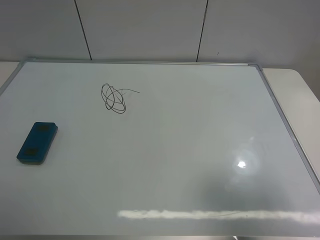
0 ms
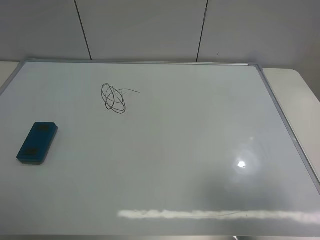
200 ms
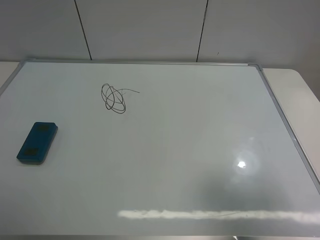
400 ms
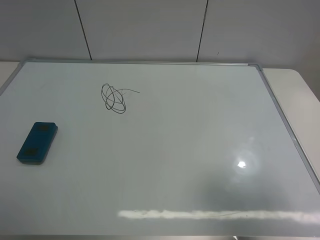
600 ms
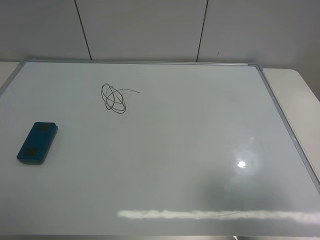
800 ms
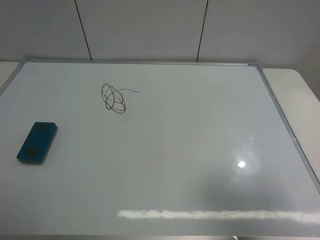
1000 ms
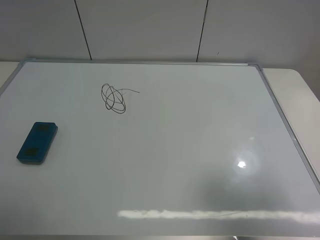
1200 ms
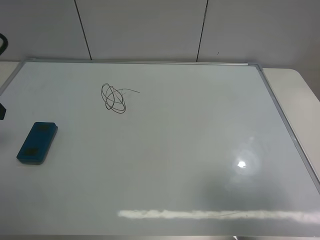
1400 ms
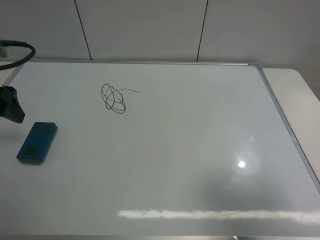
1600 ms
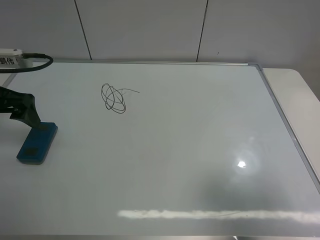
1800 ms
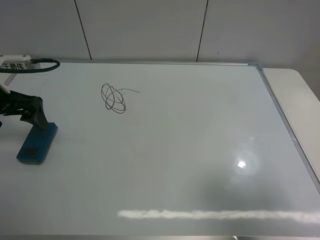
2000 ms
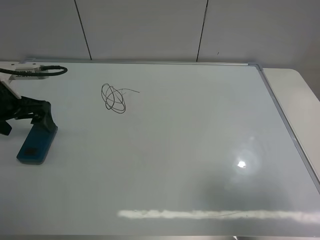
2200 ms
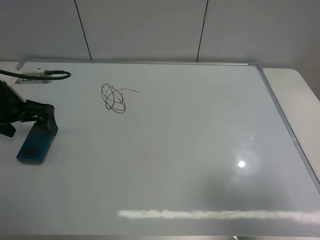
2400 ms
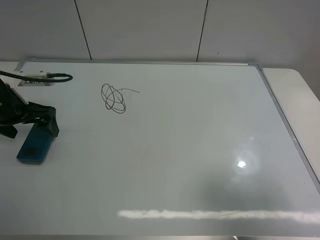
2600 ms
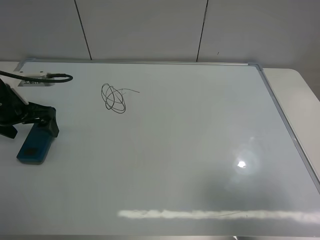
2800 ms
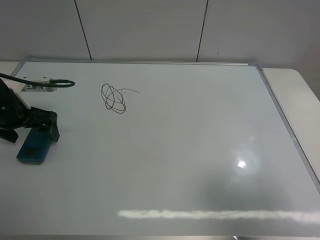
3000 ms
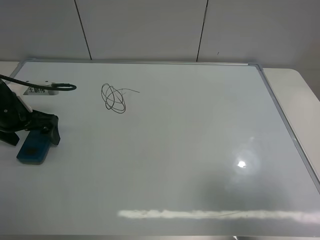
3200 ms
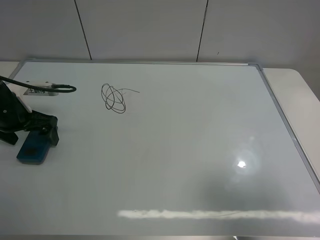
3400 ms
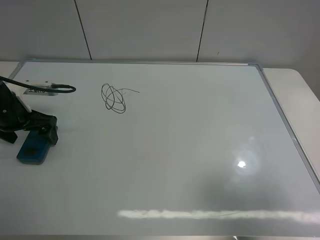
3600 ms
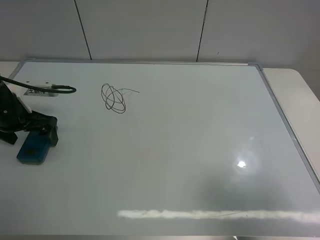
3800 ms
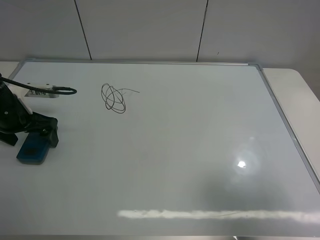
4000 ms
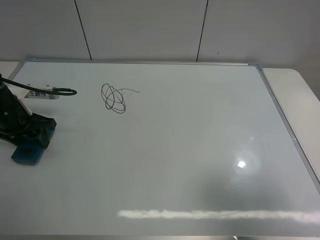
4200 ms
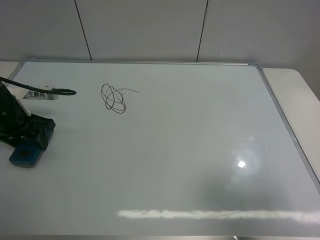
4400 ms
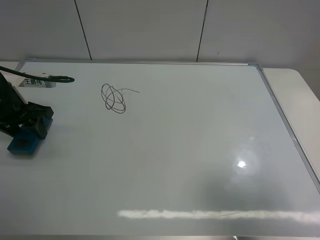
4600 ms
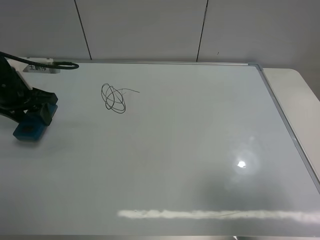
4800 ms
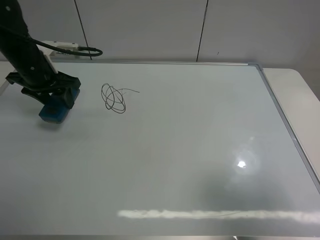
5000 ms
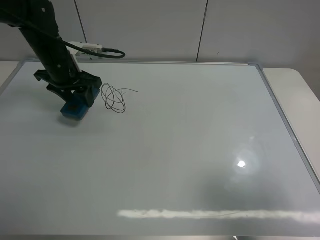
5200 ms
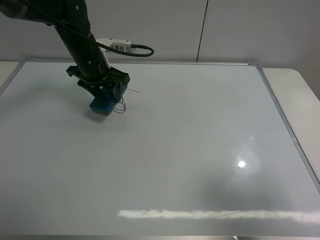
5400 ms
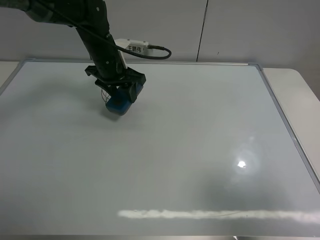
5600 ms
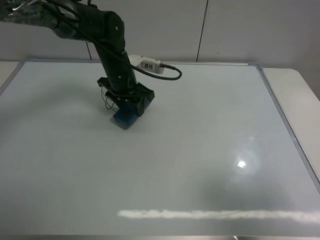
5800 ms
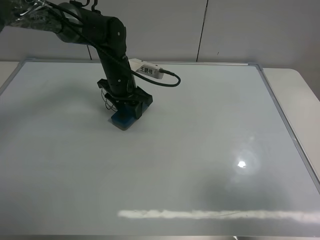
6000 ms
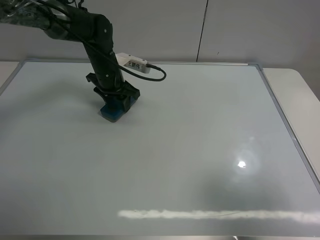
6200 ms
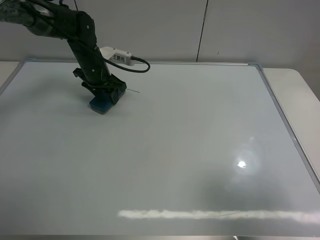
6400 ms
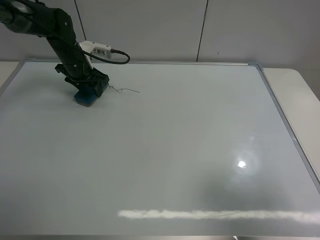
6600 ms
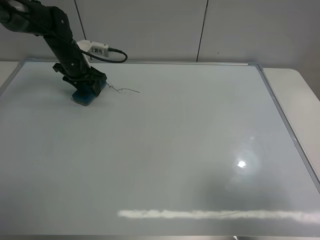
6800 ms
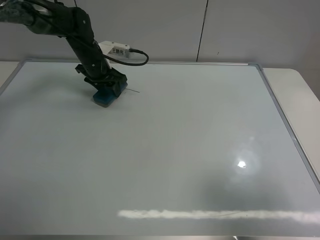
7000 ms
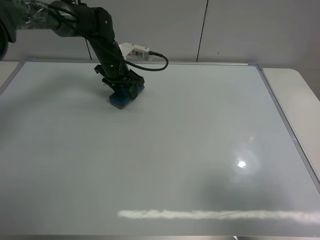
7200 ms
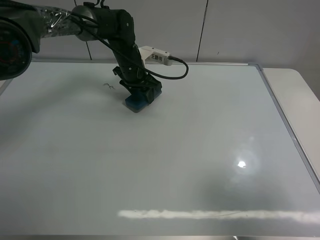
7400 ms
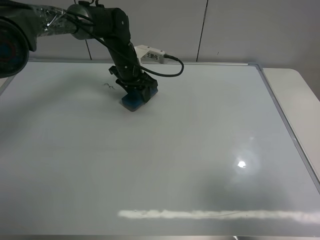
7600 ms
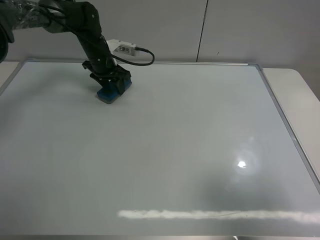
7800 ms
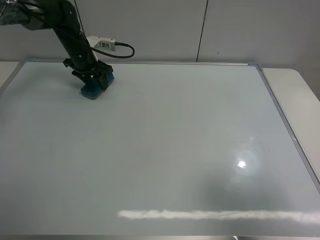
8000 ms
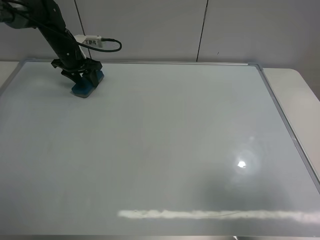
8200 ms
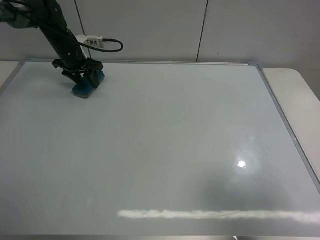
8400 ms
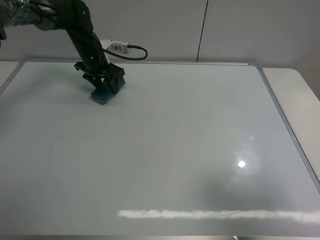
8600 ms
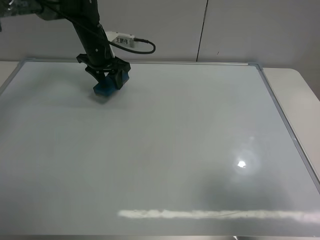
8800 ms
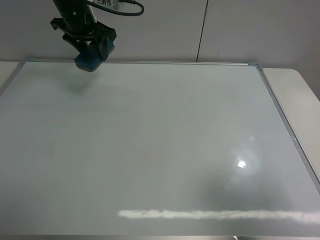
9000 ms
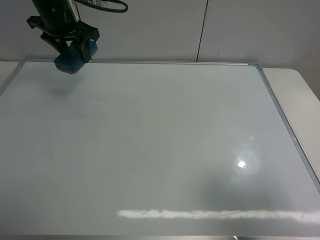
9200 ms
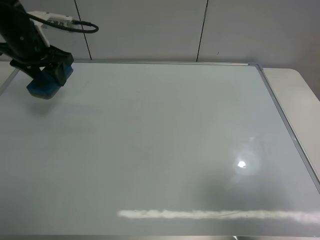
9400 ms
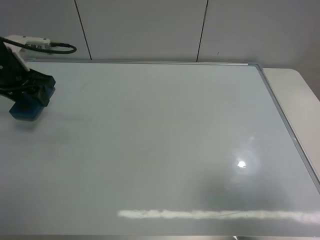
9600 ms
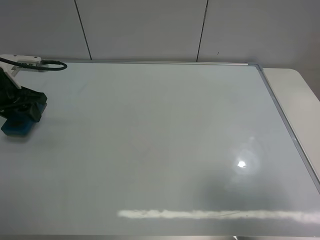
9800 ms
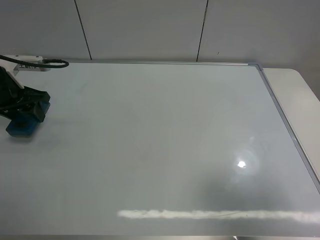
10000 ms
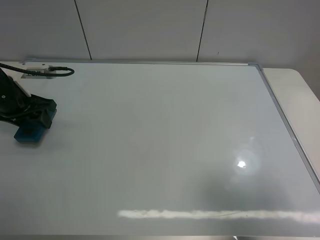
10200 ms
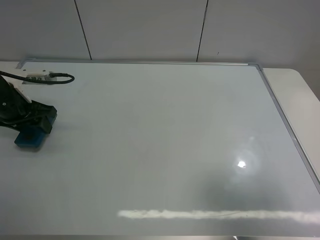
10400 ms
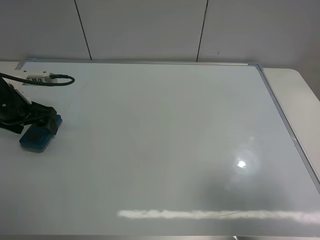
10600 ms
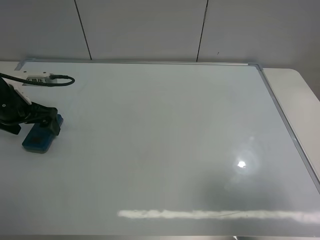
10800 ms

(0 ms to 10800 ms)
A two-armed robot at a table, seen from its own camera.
Task of the whole recording: use the left claw to pick up the whiteboard eraser, wipe the notes on the whiteboard clean, and then put them back in place.
Step, 0 ms - 4200 ms: Grasp the eraser with the left gripper.
Step, 4400 ms - 8400 ms: Grasp the eraser and wipe the blackboard with the left gripper.
Step, 8600 ms - 10800 ms: Place the eraser with the left gripper.
0 ms - 1600 ms: The left gripper moves forward, some 25 cm.
1600 ms - 3000 ms: The left gripper shifts approximately 10 cm downward and forward.
3000 ms - 4600 ms: The left gripper closes its fingers.
4600 ms - 6200 ms: The left gripper is displaced to the right and forward by about 20 cm.
6200 ms - 7800 ms: The left gripper swings left and right, roughly 15 cm each way, with 2 reversals.
7800 ms - 9200 ms: The left gripper travels upward and backward by about 15 cm.
9200 ms - 10800 ms: The left gripper moves backward, downward and to the left, approximately 20 cm, and opens its fingers.

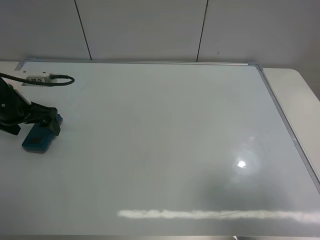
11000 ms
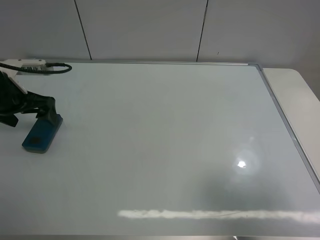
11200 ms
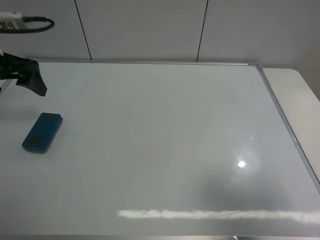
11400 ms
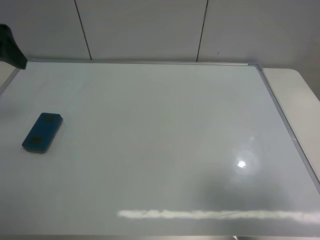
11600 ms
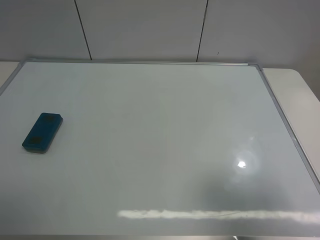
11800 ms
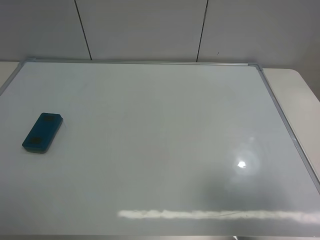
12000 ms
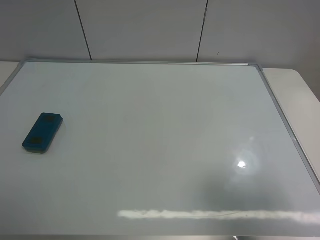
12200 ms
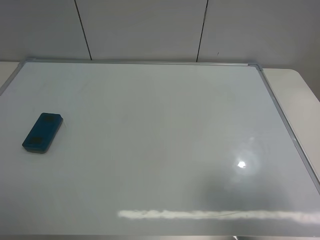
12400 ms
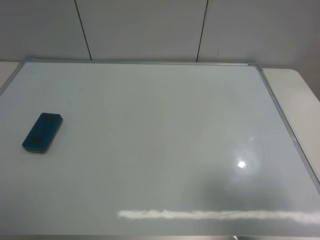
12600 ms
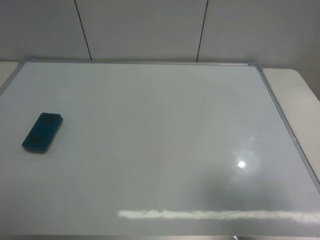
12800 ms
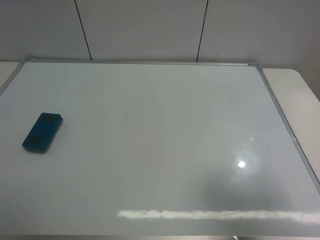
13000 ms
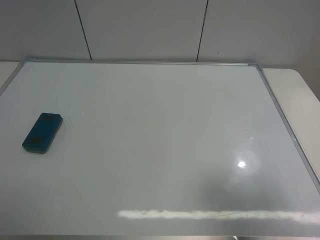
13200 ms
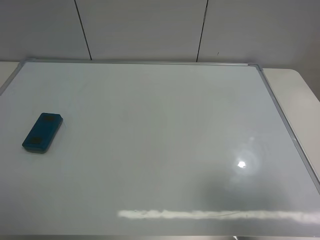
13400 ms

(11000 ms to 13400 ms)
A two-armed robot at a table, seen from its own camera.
Task of the whole recording: use the left claw to pick up the whiteboard eraser, wipe the notes on the whiteboard clean, and then put them back in place.
11000 ms - 12200 ms: The left gripper heads backward and upward, covering some 40 cm.
